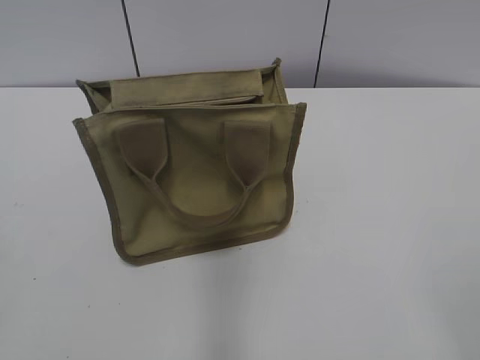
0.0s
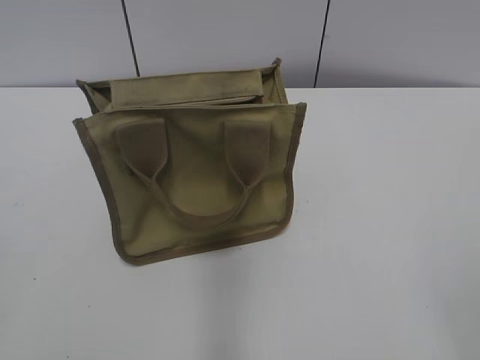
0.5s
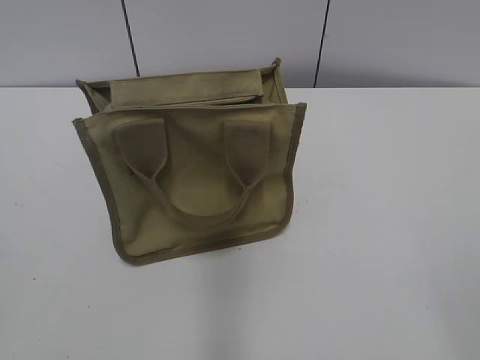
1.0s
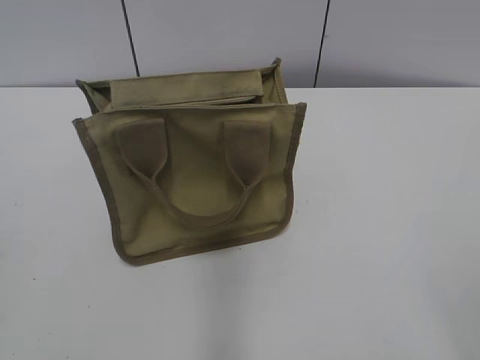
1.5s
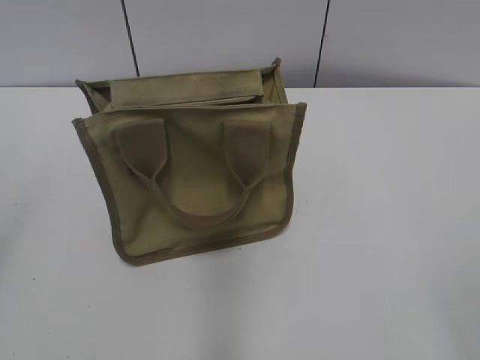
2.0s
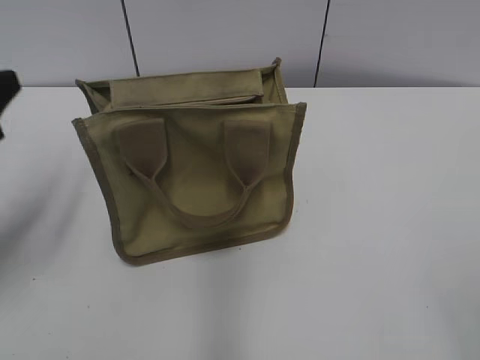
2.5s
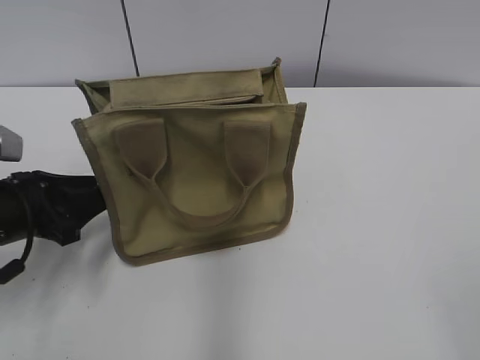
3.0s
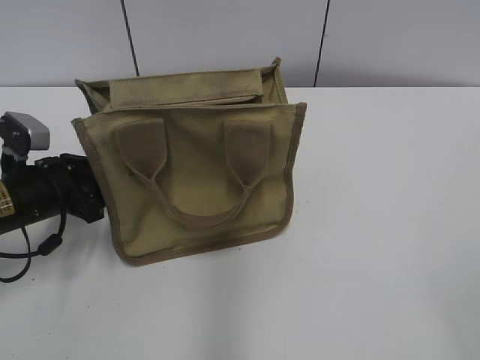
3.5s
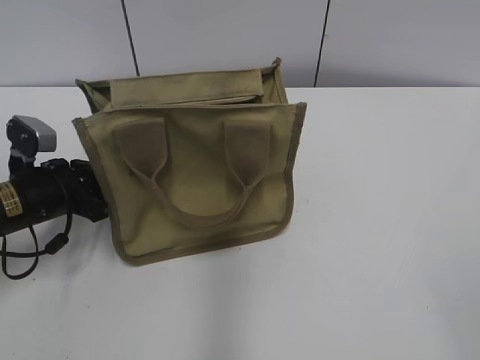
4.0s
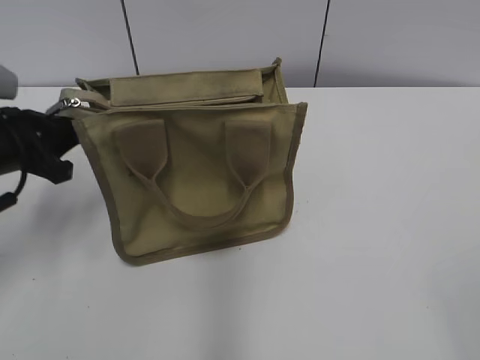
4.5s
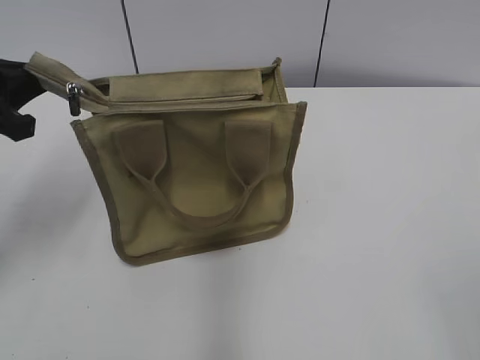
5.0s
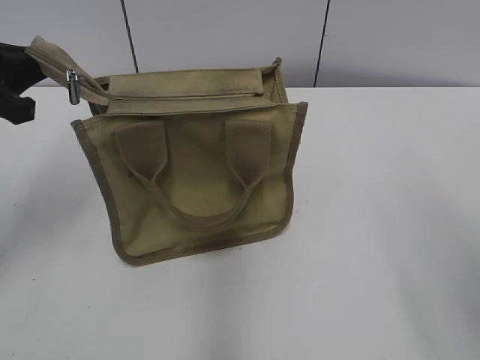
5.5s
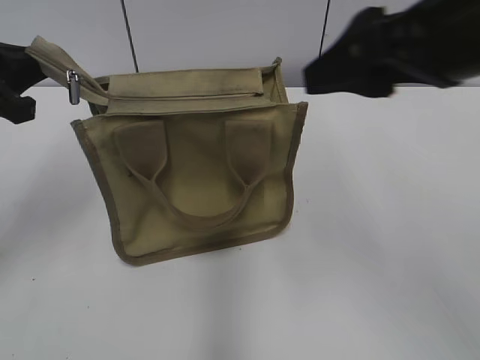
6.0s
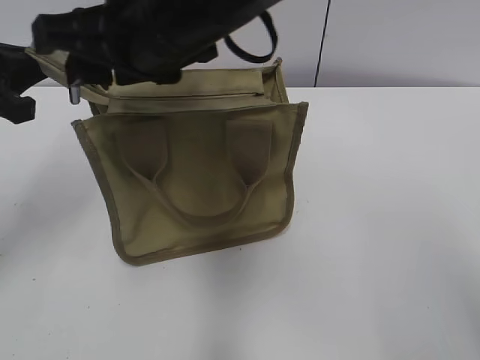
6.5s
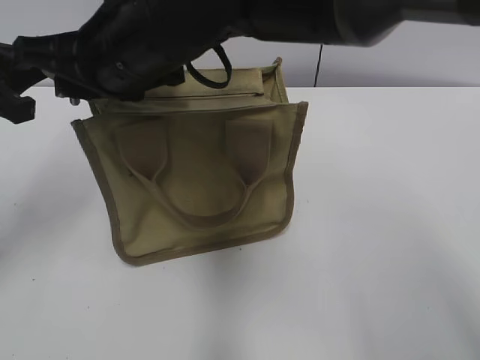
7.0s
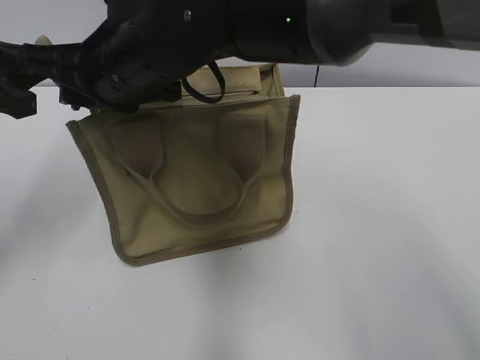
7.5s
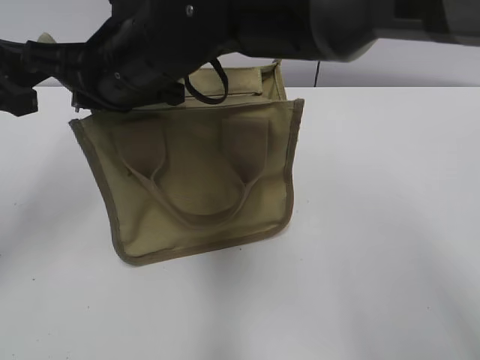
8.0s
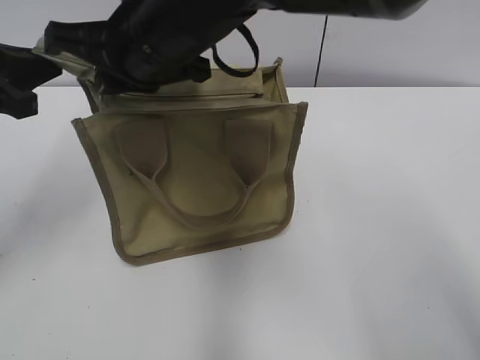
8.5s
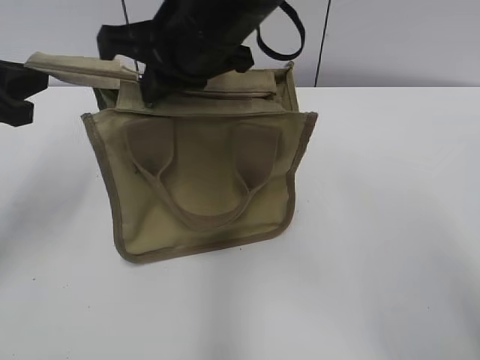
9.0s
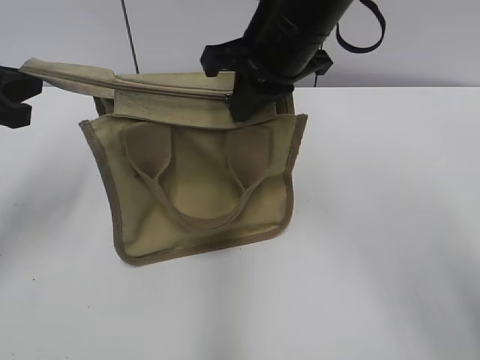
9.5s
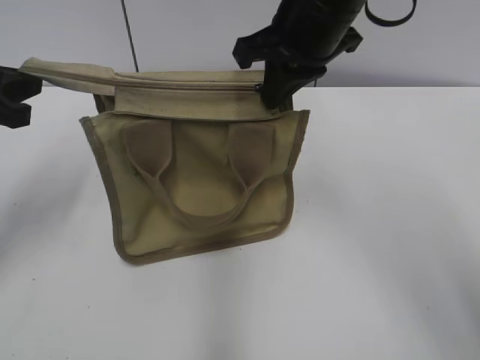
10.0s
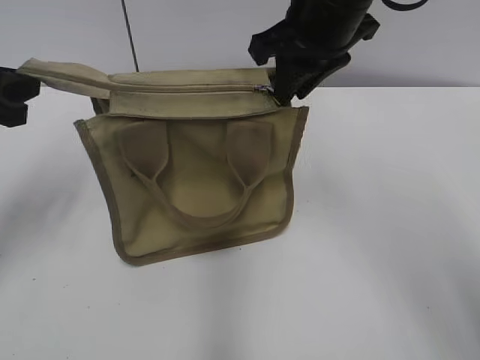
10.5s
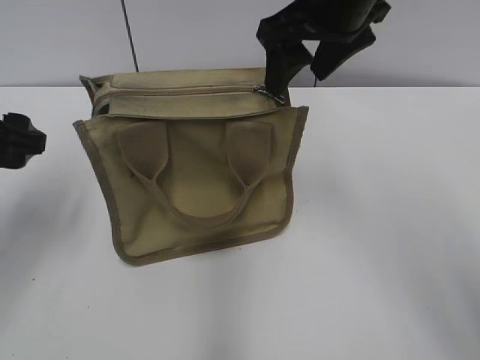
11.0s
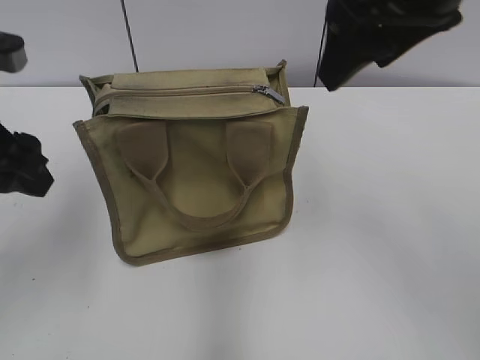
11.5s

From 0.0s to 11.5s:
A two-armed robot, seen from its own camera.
Step, from 0.0s to 10.0s: Zip up the bag with your right hand.
From 2.0s to 4.0s: The left gripper travels downward and forward by about 35 cm, and closes up.
From 4.0s to 6.0s: The left gripper heads upward, covering roughly 15 cm; the right gripper moves forward and to the left, roughly 25 cm.
From 6.0s to 7.5s: The right gripper shifts about 25 cm to the left, and closes.
From 7.5s to 9.5s: The right gripper goes roughly 15 cm to the right, and closes.
From 9.5s to 11.5s: The left gripper shifts by roughly 5 cm, and opens. The right gripper shifts roughly 10 cm upward, to the right and backward, and opens.

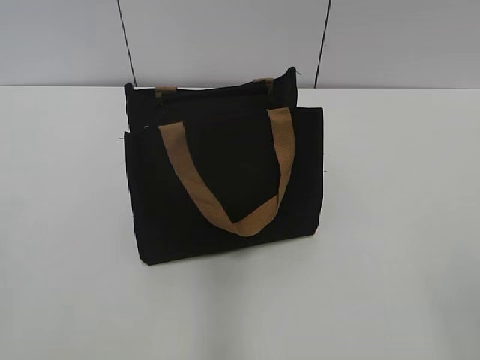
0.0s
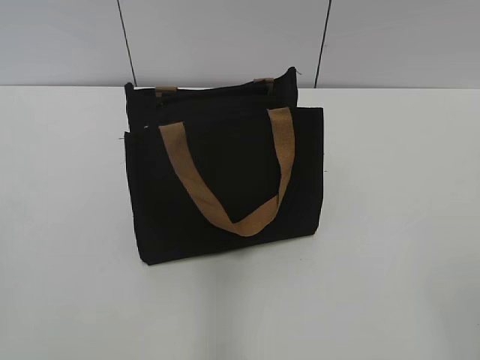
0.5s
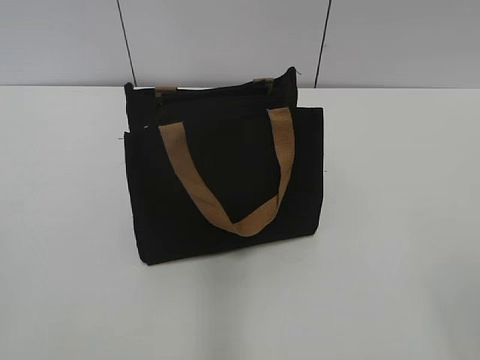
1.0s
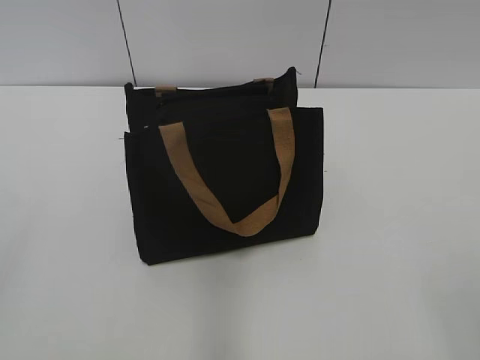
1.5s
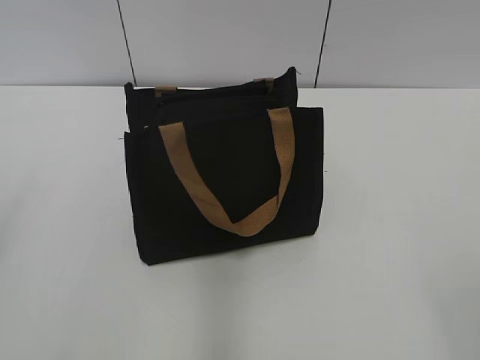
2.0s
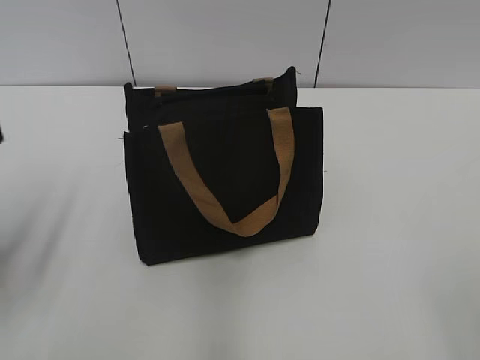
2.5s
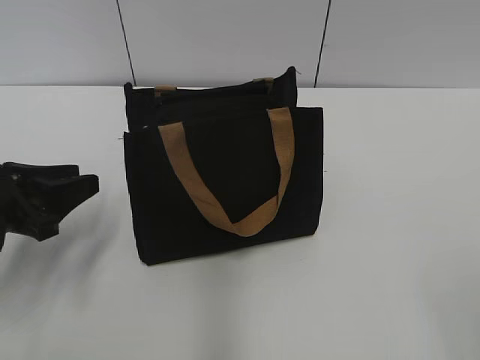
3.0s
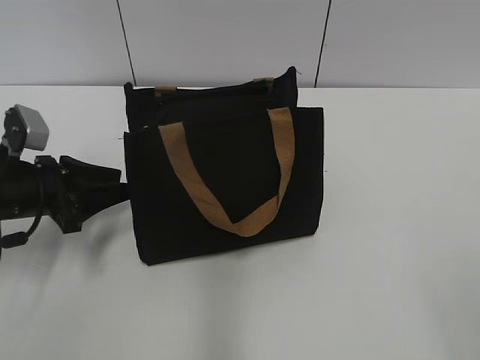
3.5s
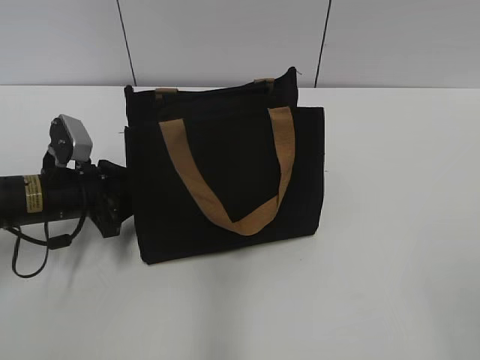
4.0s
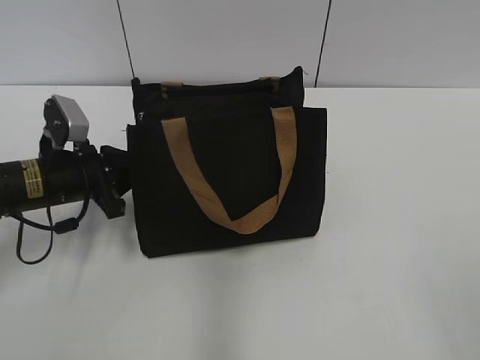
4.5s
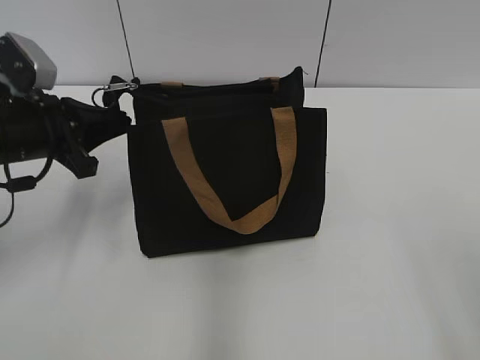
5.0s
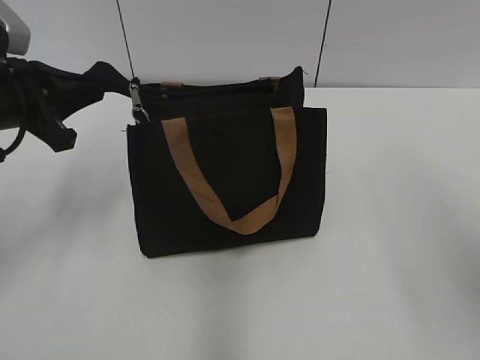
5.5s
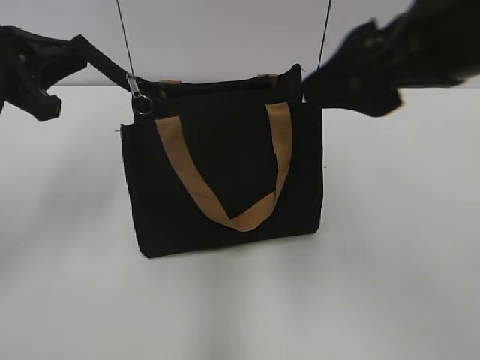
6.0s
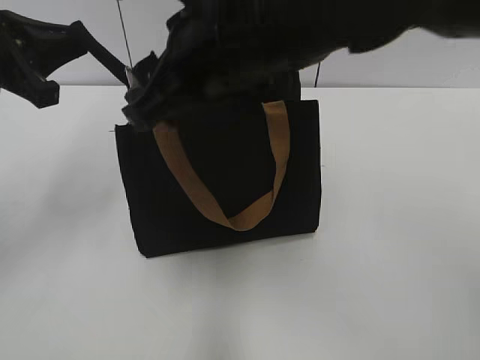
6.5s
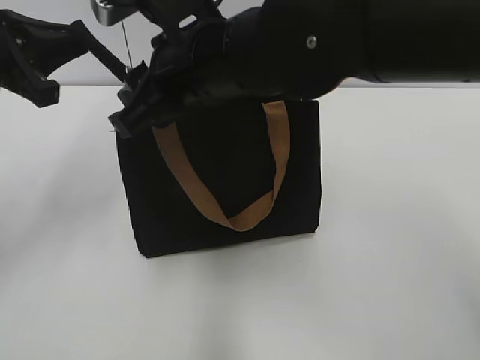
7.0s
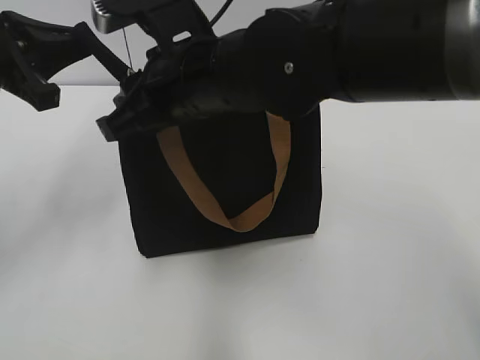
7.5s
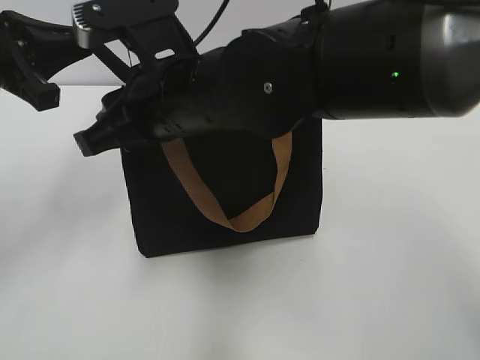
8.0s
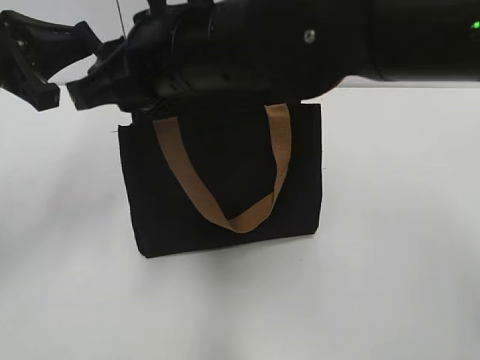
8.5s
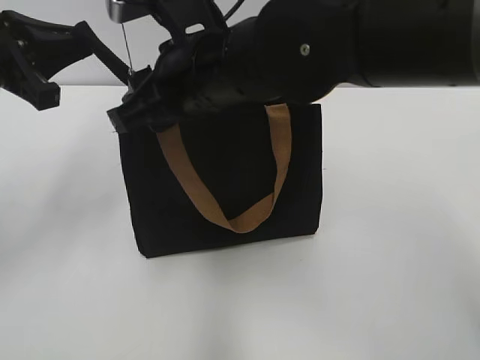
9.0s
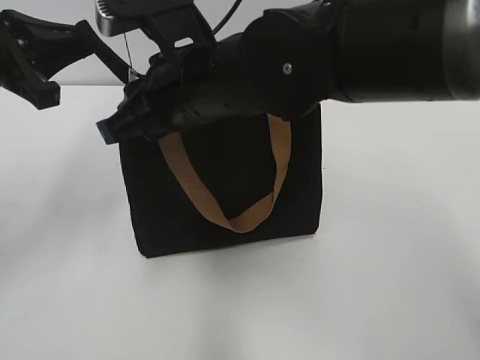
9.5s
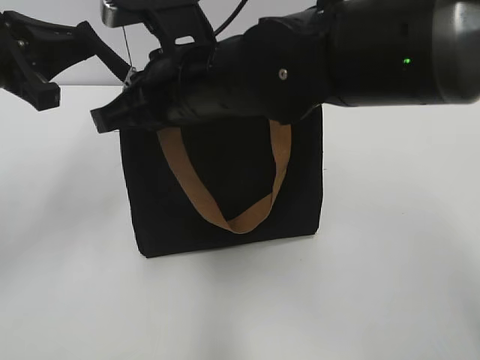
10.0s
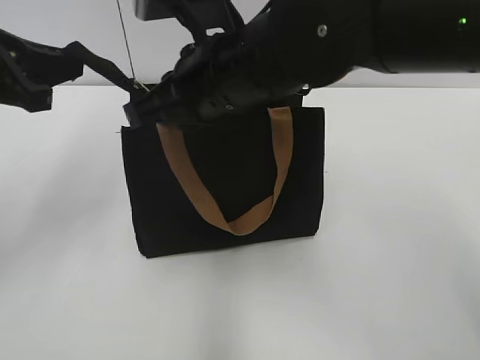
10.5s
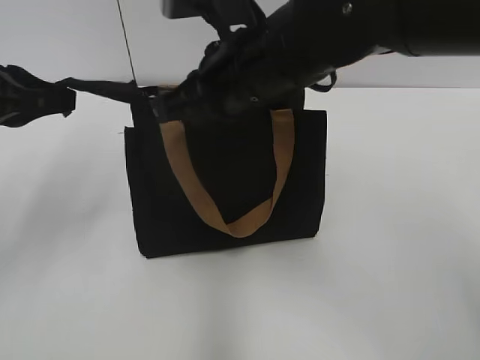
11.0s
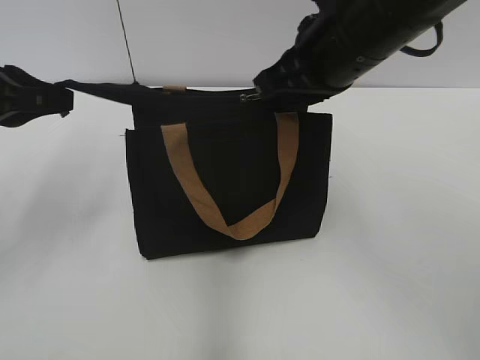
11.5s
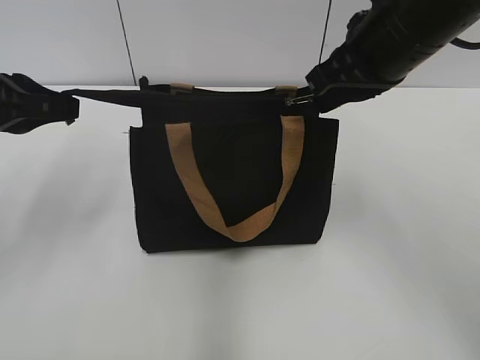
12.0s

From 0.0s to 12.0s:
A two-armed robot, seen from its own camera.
From 2.0s to 4.0s: The left gripper goes roughly 30 cm forward, downward and to the right.
From 4.0s to 6.0s: The right gripper is displaced forward and to the left by approximately 25 cm. The left gripper shifts approximately 20 cm upward, and closes its fingers.
From 6.0s to 8.0s: The right gripper travels to the left and downward by some 20 cm, and closes up.
From 8.0s to 10.0s: The right gripper closes its fingers.
From 10.0s to 12.0s: The right gripper travels to the right by about 15 cm.

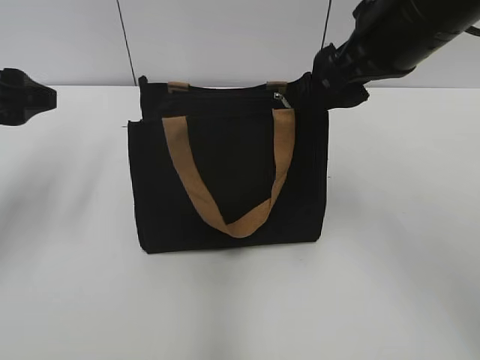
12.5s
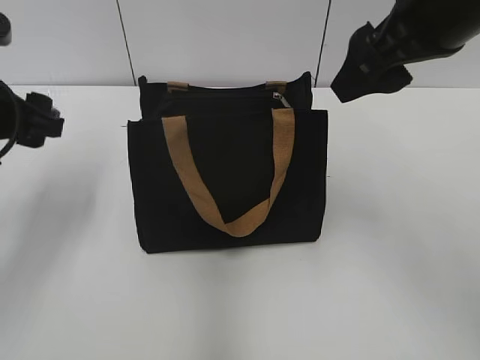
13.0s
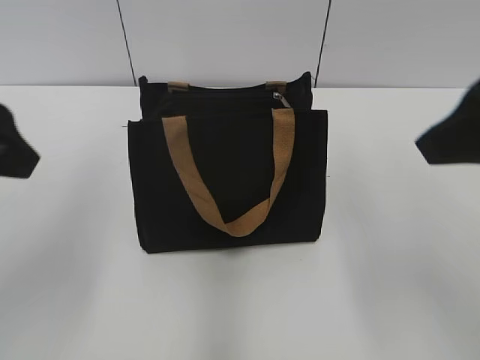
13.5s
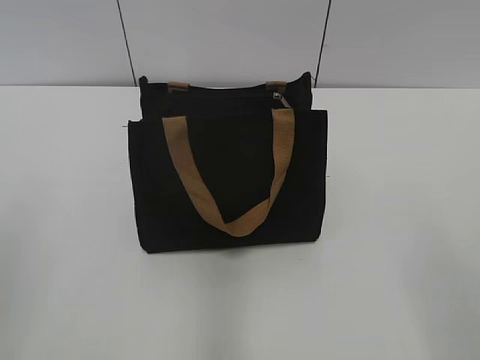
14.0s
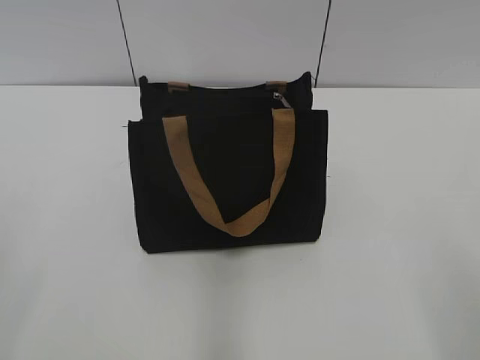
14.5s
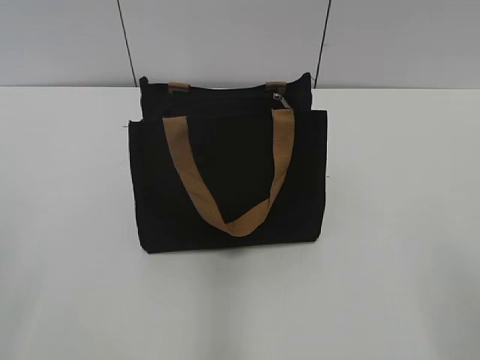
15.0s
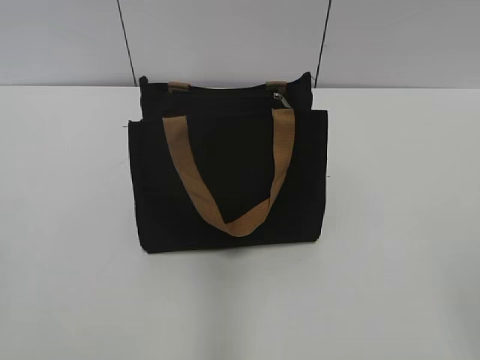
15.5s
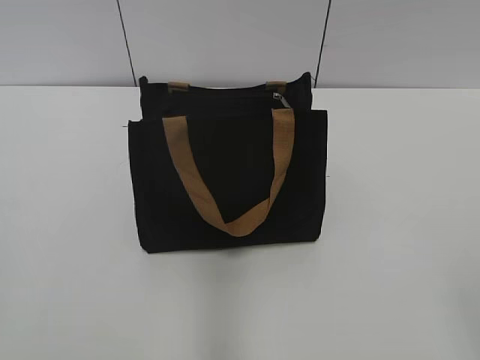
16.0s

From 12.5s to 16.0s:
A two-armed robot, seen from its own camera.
From 12.5s to 14.5s: The right gripper shifts approximately 30 cm backward and to the right. The left gripper moves backward, some 25 cm.
